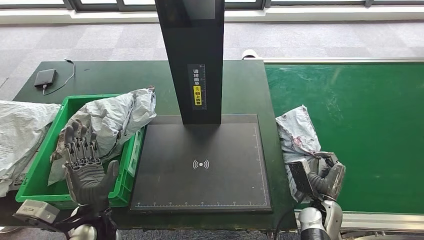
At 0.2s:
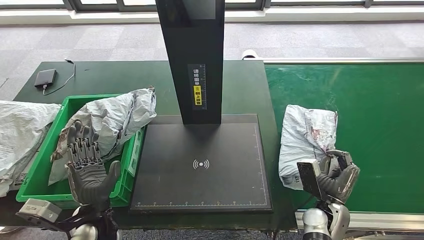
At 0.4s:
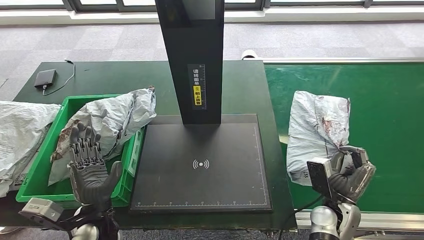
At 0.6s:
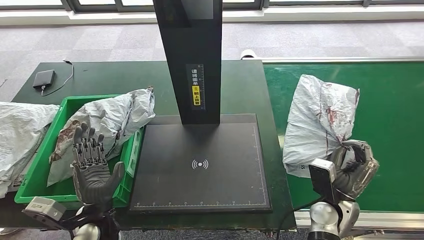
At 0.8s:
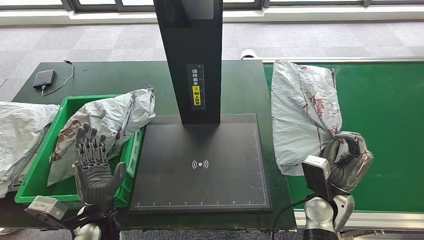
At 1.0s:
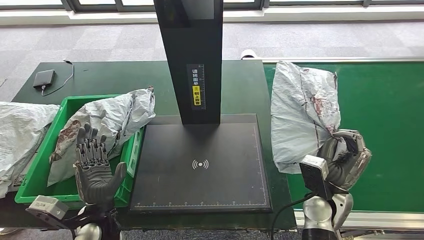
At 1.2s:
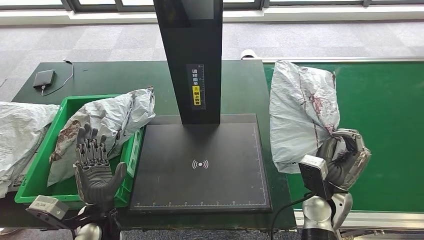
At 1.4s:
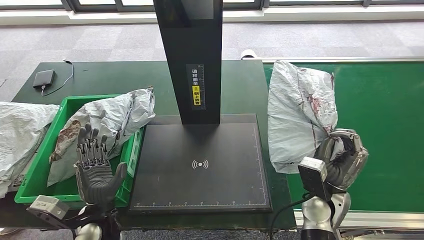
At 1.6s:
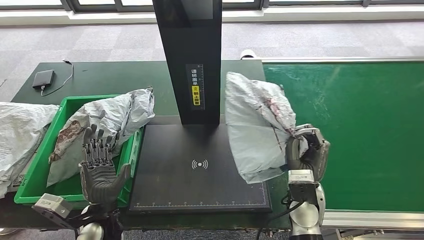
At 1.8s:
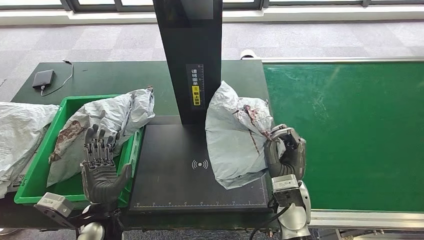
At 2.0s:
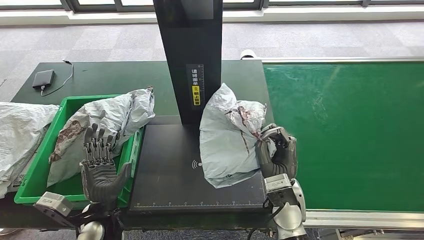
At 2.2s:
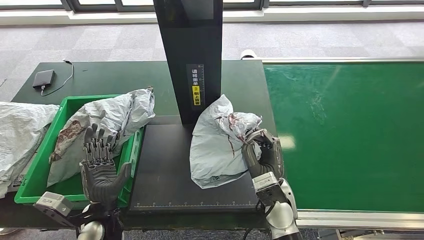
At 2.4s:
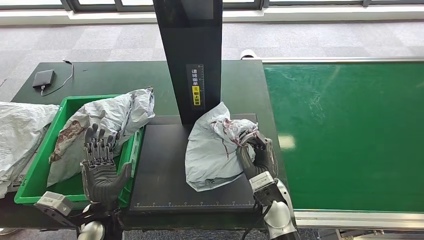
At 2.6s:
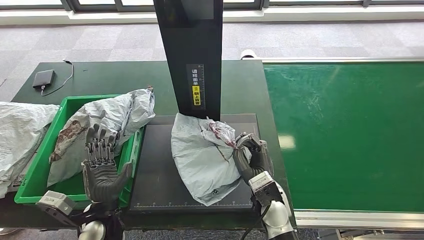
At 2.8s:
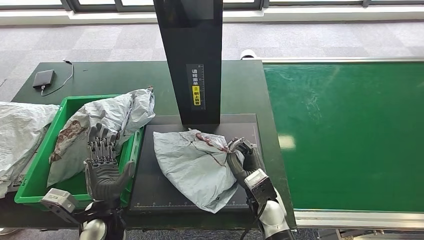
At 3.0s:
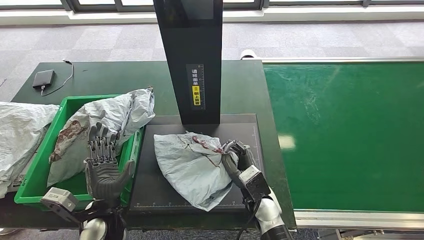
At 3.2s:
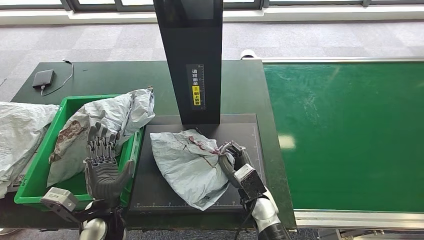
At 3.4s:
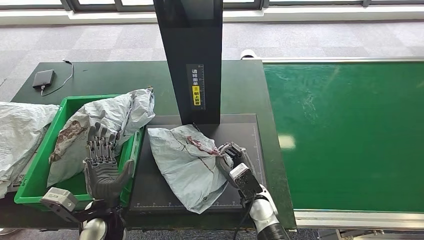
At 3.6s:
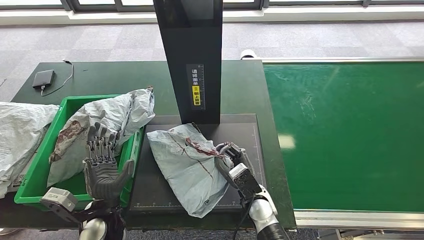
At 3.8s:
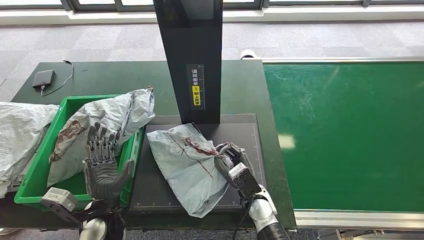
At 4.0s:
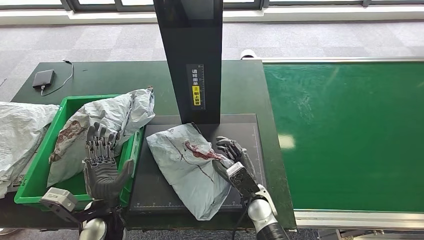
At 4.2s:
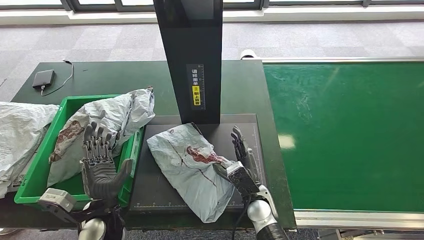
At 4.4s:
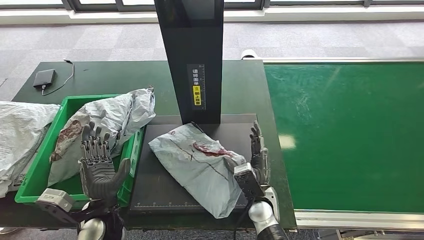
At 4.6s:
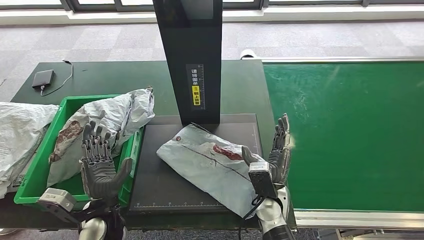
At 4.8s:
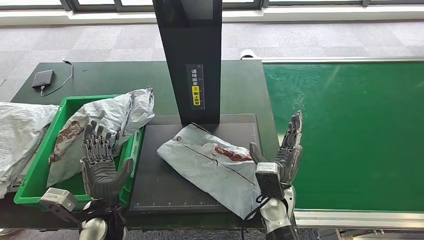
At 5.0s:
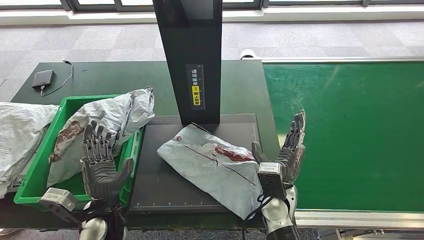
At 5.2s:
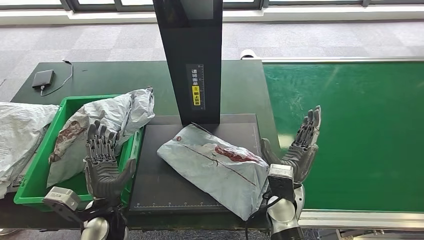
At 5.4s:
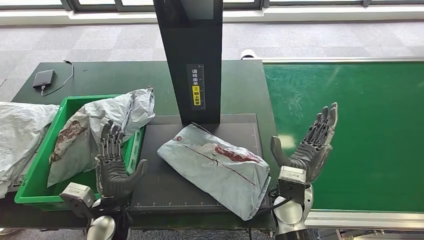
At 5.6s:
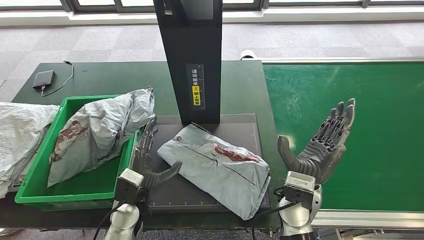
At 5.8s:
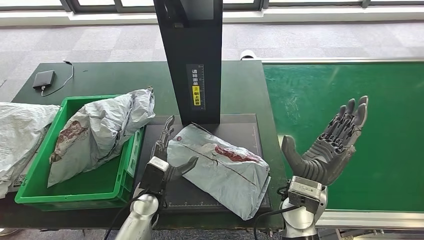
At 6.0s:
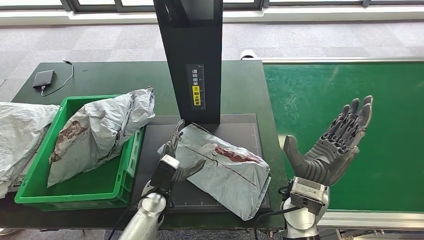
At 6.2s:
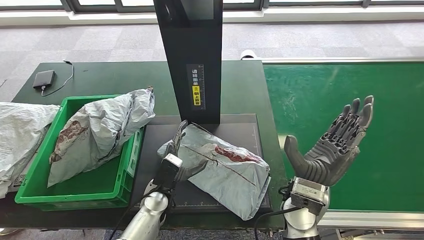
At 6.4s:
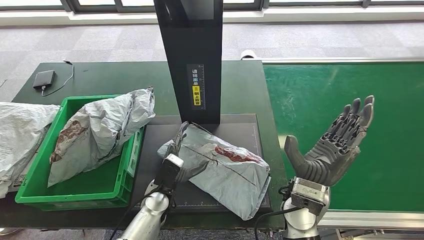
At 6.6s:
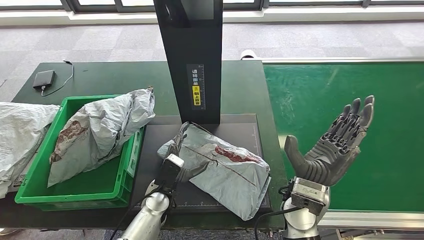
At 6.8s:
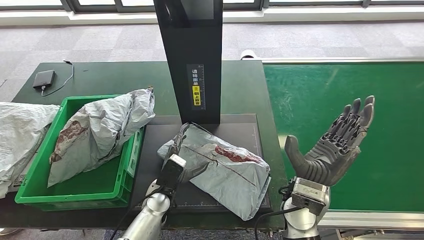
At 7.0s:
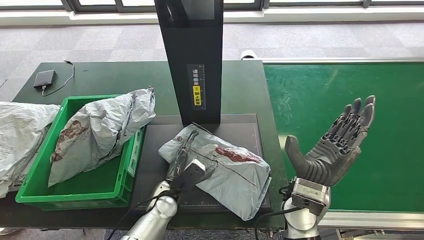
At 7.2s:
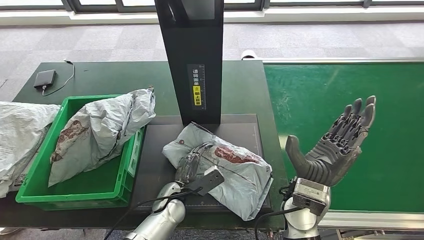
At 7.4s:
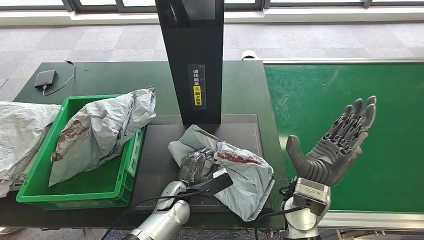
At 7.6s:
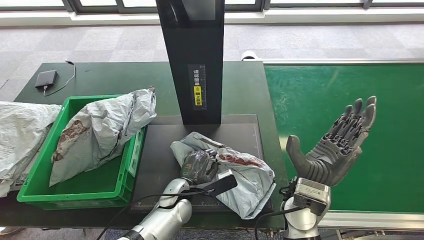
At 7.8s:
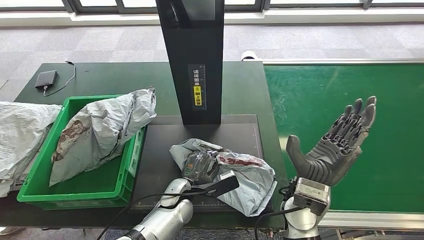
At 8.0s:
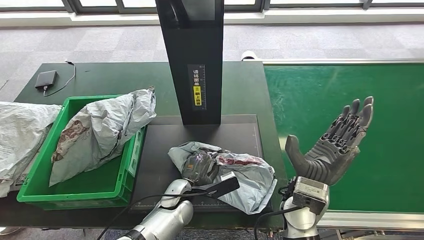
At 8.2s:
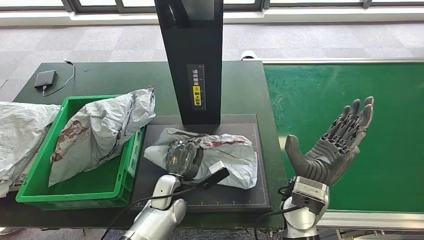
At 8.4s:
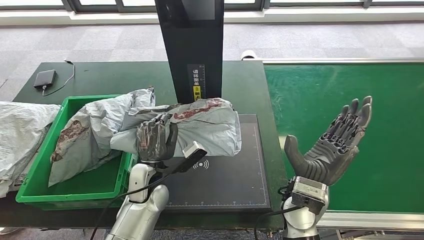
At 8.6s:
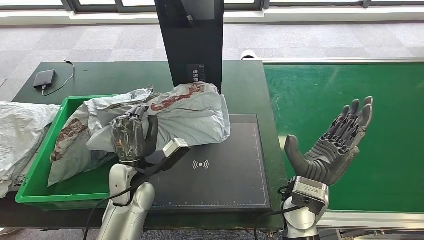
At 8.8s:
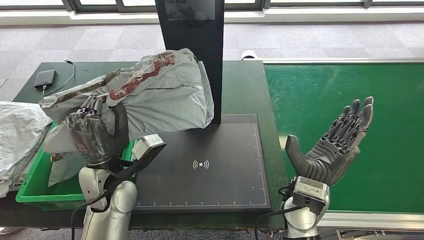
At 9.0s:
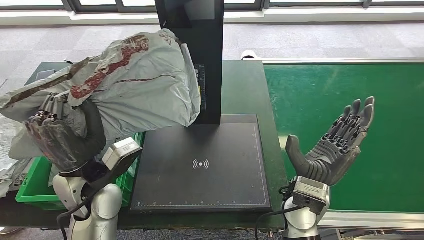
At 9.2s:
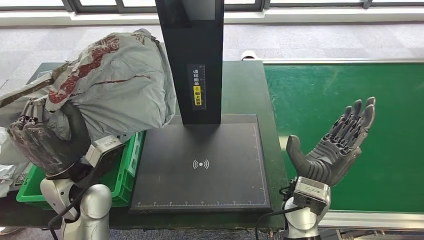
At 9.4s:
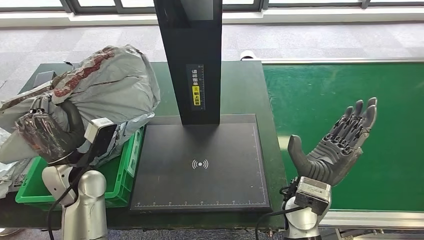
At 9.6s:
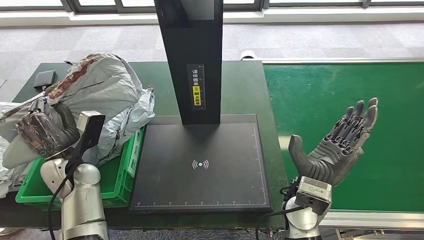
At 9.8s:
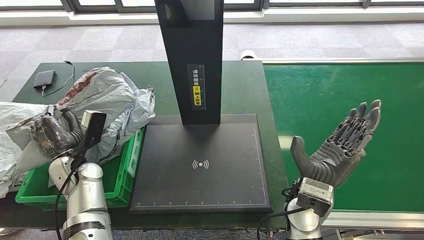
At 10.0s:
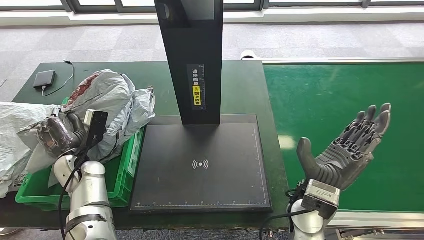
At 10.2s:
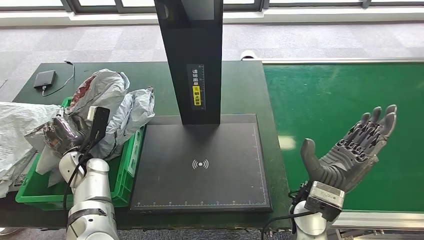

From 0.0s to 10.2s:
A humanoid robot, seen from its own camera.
Step, from 1.4s to 5.4s: Place the parcel onto the inbound machine.
Step, from 5.6s to 8.6s: Pick up the parcel from the inbound machine.
From 0.0s to 1.4s: The right hand goes about 10 cm upward.
From 1.4s to 3.0s: The right hand goes some 15 cm to the left.
From 4.4s to 5.8s: The left hand goes some 10 cm to the right and forward. Meanwhile the right hand heads upward and to the right, covering roughly 15 cm.
From 5.8s to 7.2s: The left hand heads to the right, covering some 5 cm.

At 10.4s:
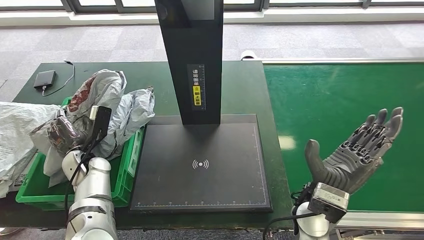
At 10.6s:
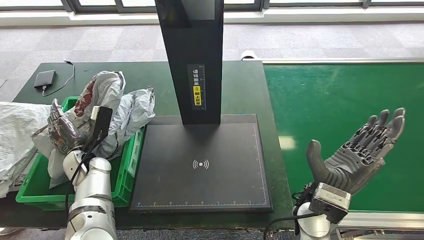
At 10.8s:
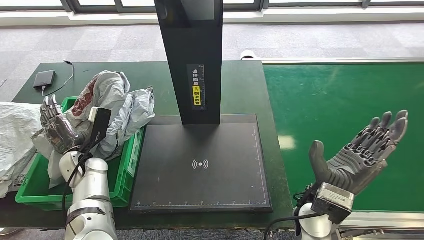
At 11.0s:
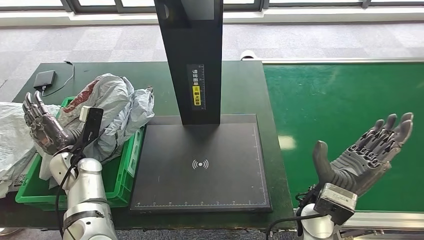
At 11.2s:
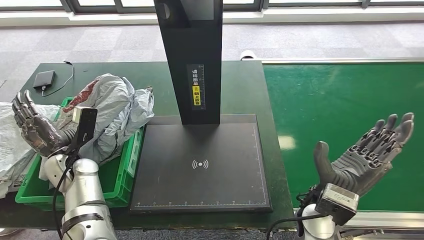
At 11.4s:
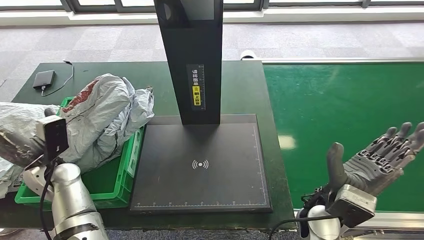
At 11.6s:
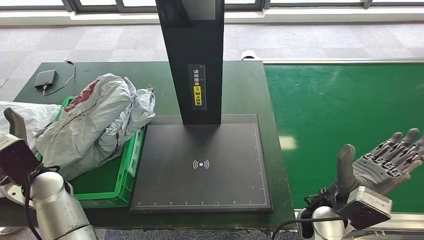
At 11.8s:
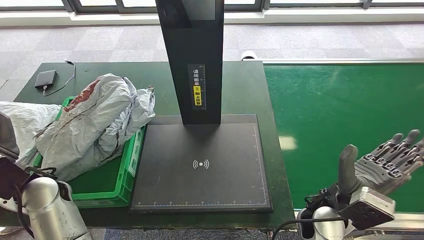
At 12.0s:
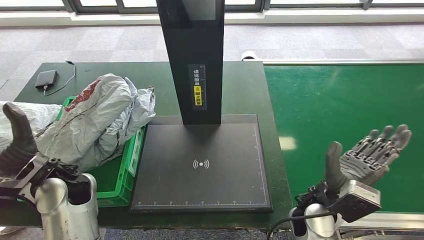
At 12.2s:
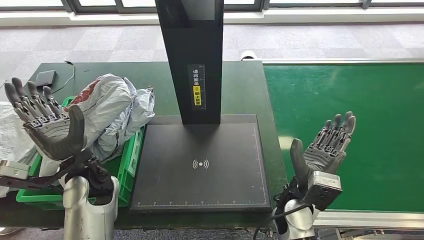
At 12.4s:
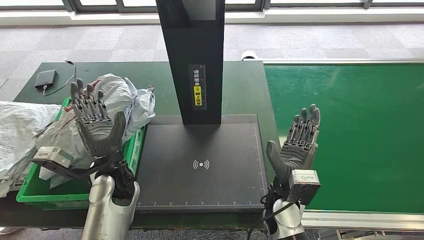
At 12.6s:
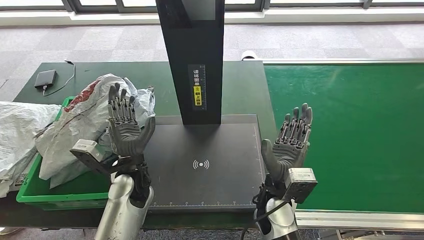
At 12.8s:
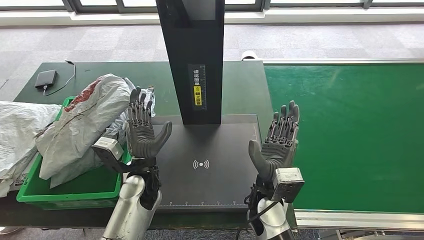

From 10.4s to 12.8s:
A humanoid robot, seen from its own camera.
Step, from 10.4s to 12.8s: Place the parcel into the delivery box.

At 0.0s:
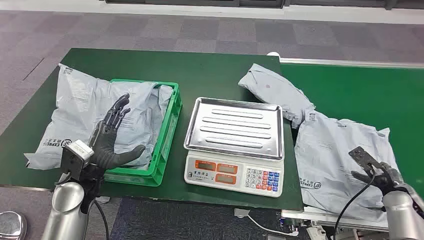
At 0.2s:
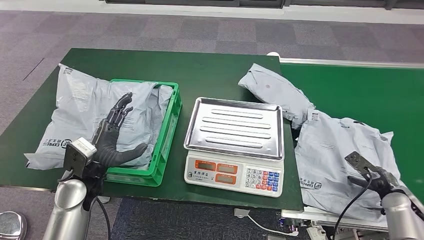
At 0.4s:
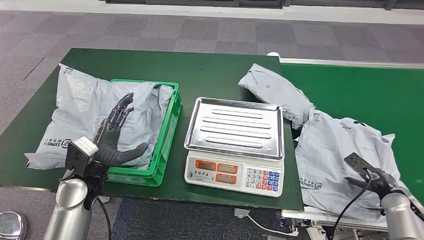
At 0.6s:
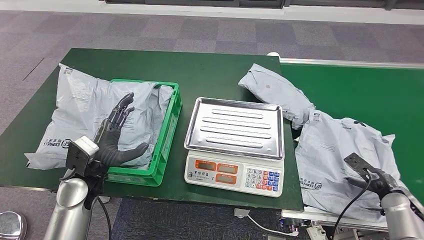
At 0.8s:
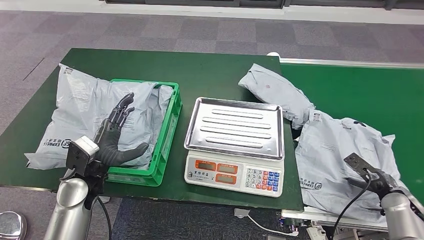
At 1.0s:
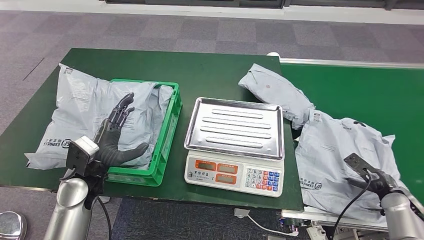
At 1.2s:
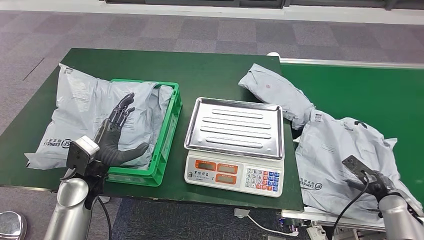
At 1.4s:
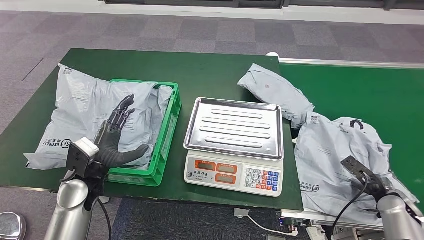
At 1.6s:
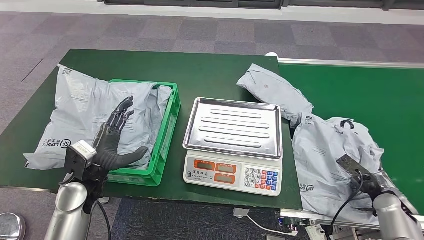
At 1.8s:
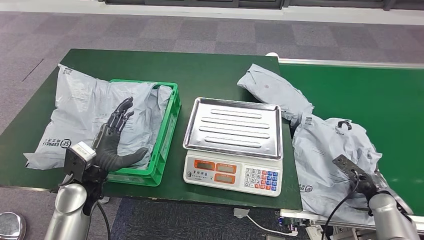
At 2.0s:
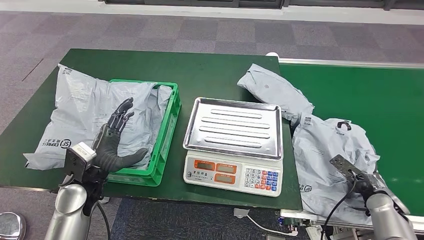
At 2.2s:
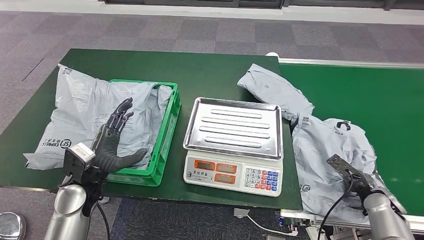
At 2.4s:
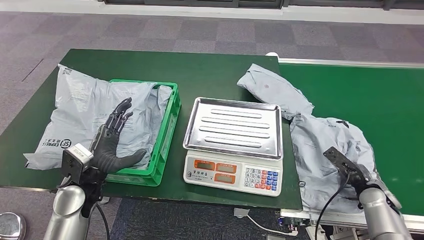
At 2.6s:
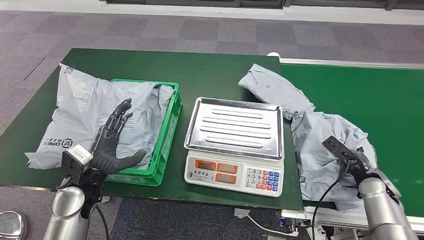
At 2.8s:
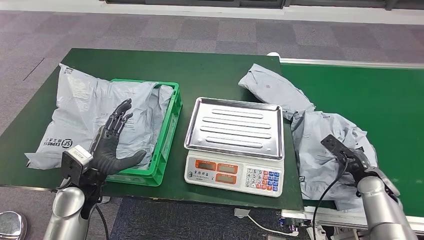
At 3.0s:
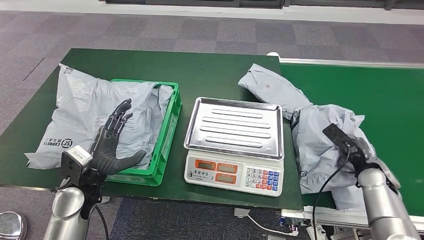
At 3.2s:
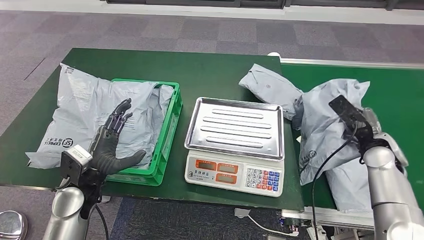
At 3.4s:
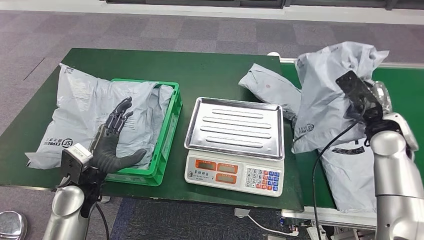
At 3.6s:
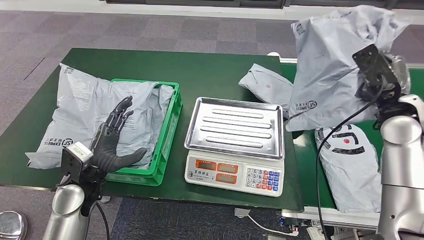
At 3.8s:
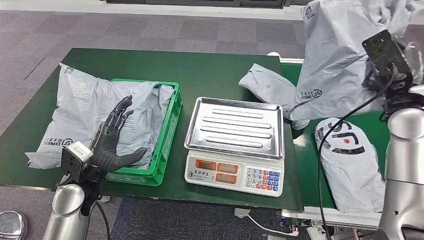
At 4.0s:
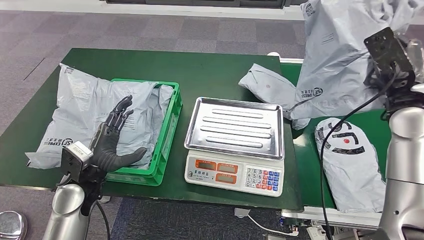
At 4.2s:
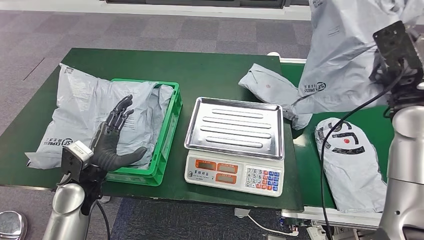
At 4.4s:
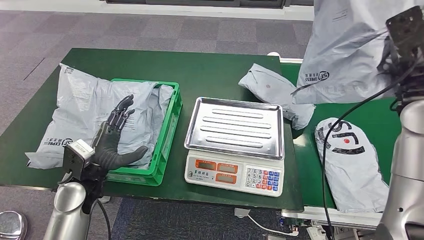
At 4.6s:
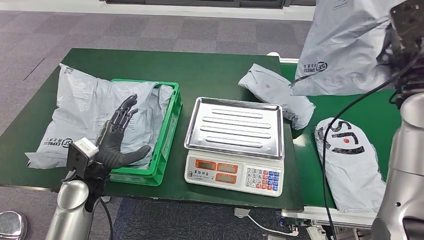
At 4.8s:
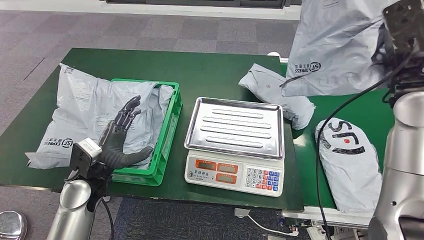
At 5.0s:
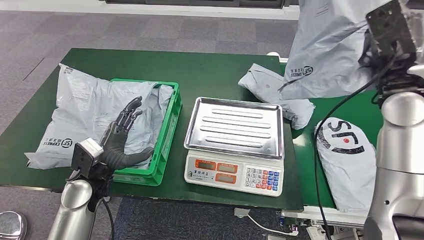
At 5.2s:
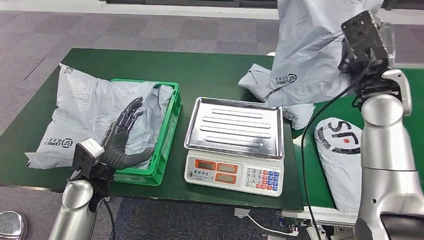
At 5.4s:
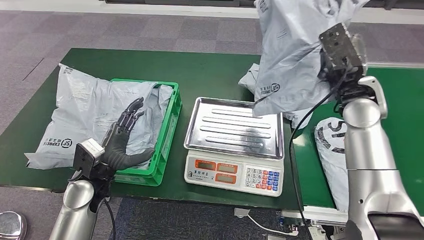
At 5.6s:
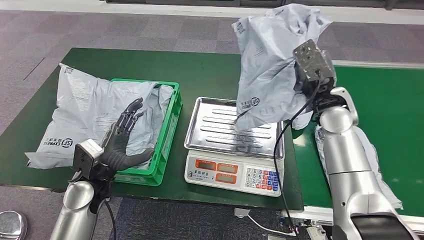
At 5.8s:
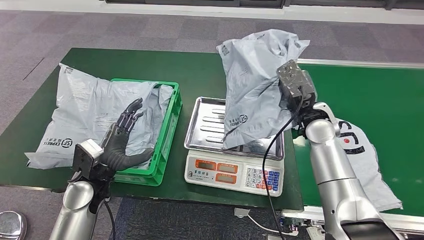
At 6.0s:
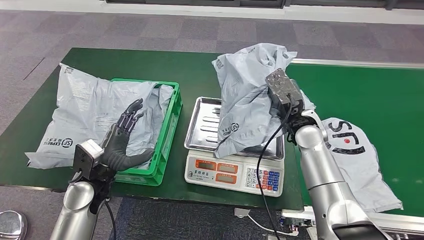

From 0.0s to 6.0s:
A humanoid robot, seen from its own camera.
Step, from 0.0s to 3.8s: Take the parcel off the conveyor belt.
From 1.6s to 3.0s: The right hand shifts about 5 cm forward.
